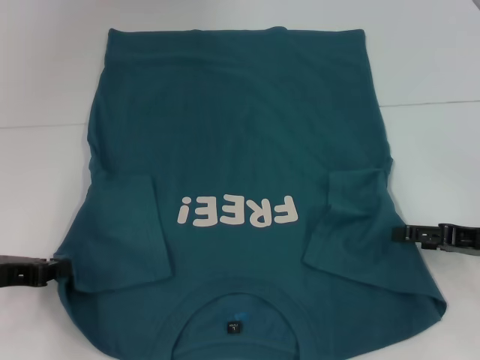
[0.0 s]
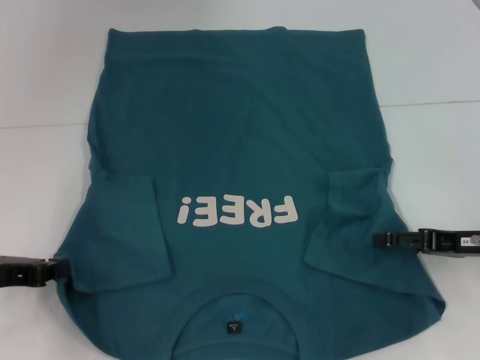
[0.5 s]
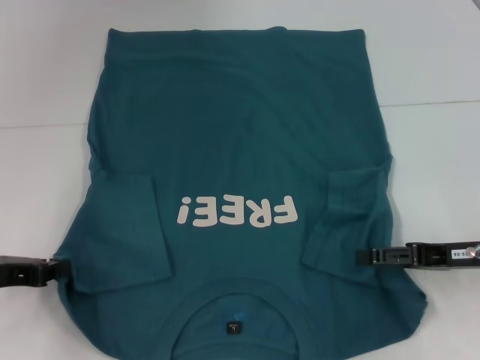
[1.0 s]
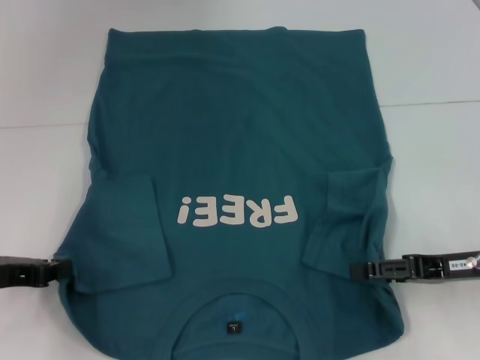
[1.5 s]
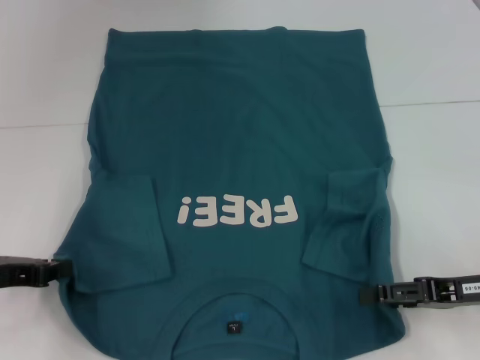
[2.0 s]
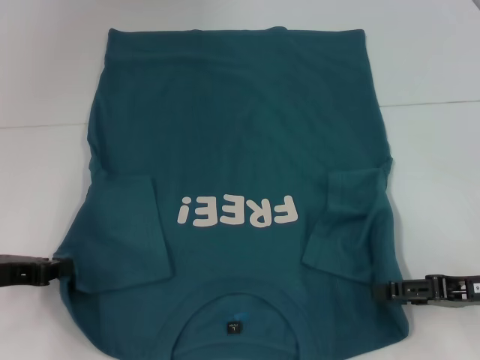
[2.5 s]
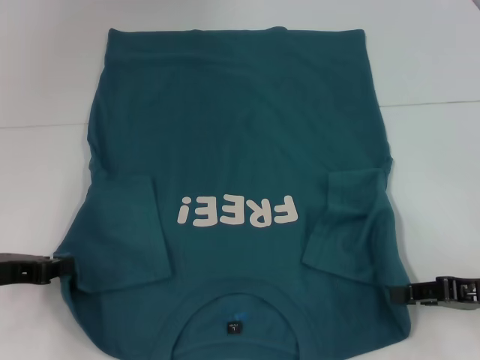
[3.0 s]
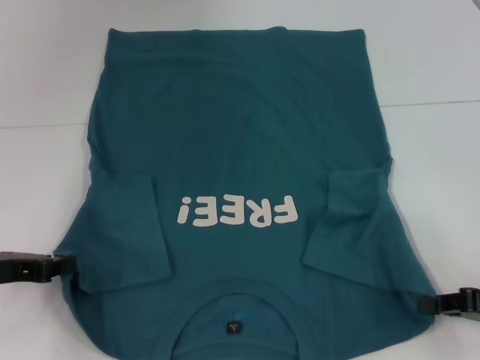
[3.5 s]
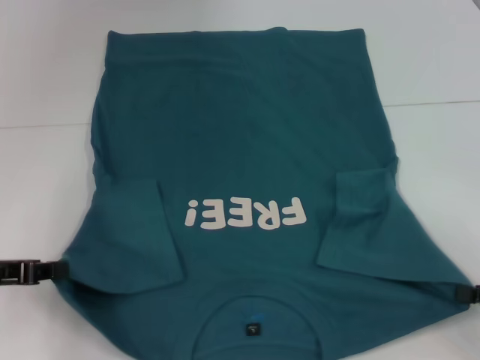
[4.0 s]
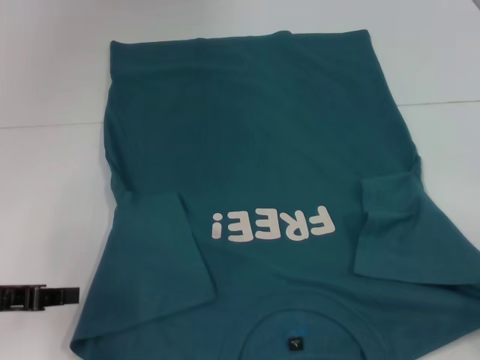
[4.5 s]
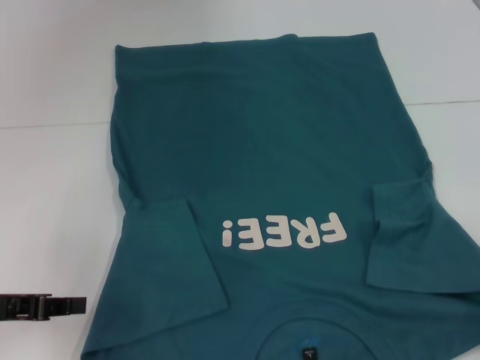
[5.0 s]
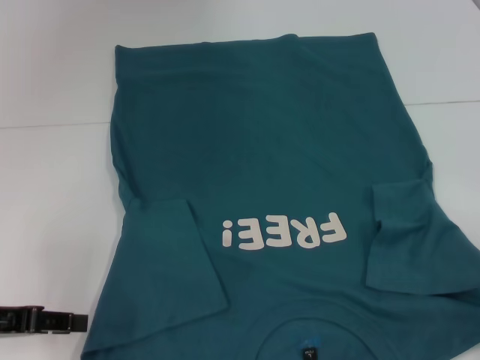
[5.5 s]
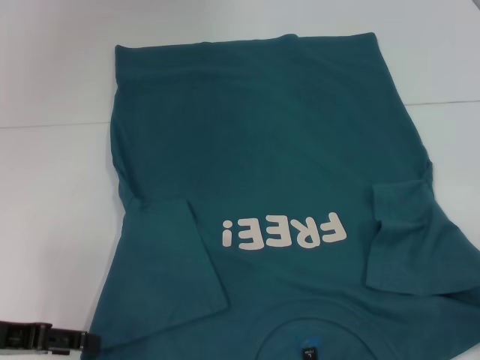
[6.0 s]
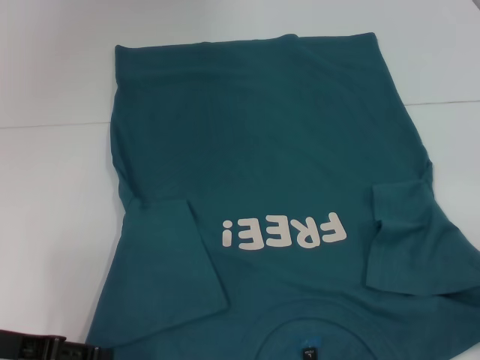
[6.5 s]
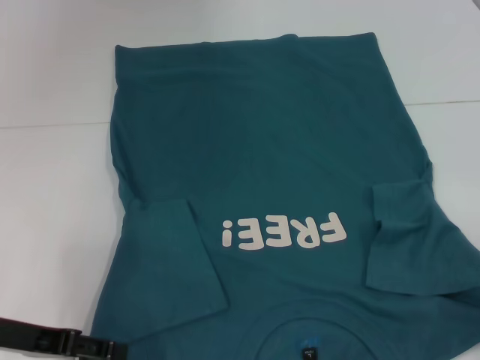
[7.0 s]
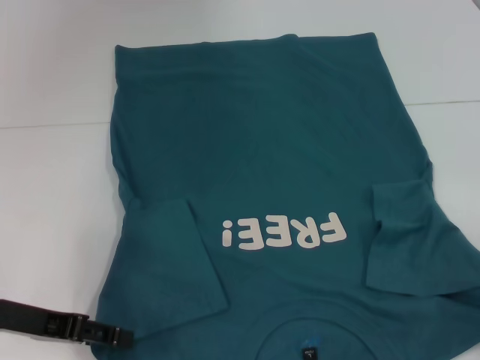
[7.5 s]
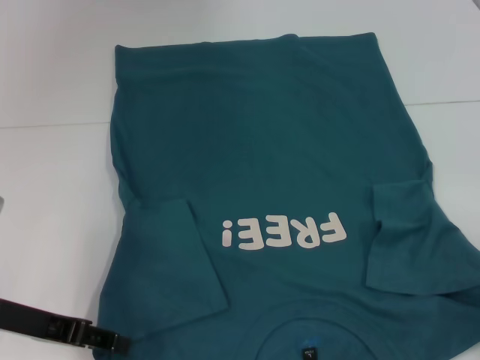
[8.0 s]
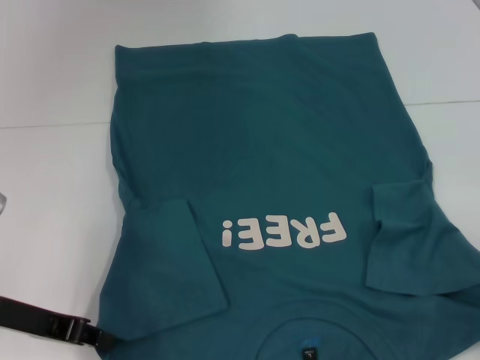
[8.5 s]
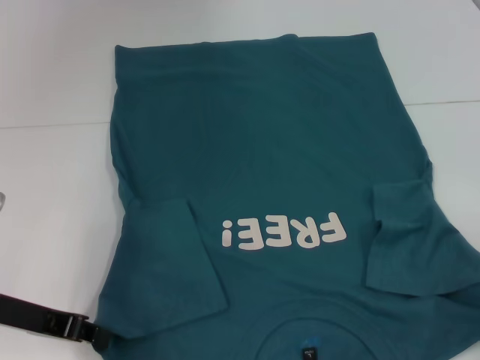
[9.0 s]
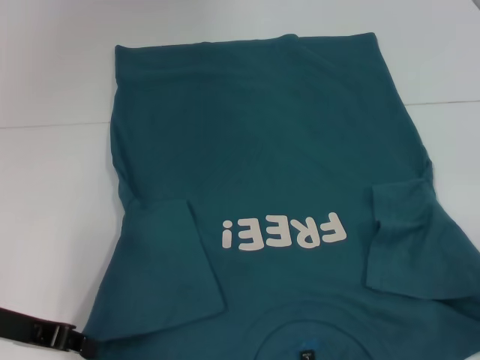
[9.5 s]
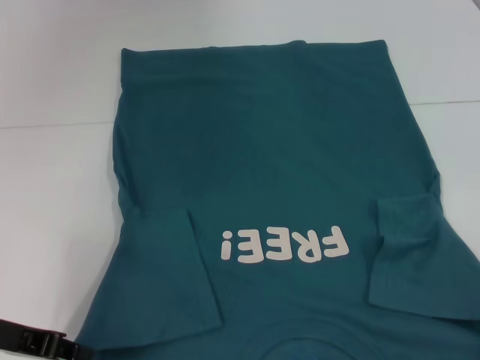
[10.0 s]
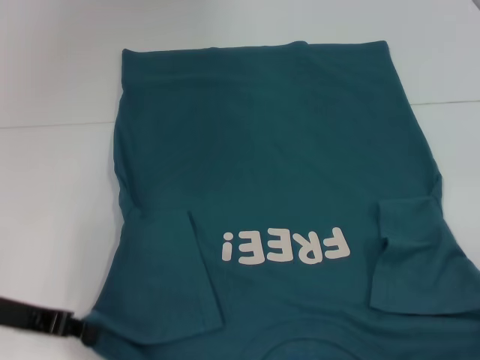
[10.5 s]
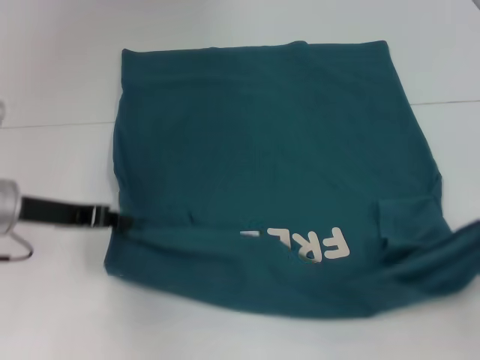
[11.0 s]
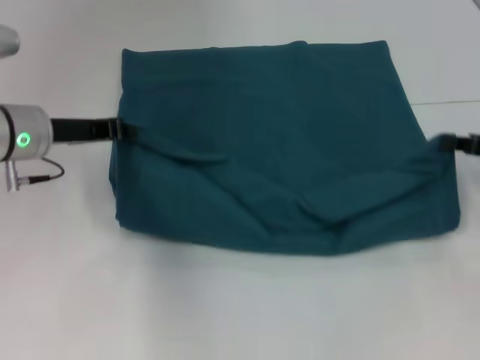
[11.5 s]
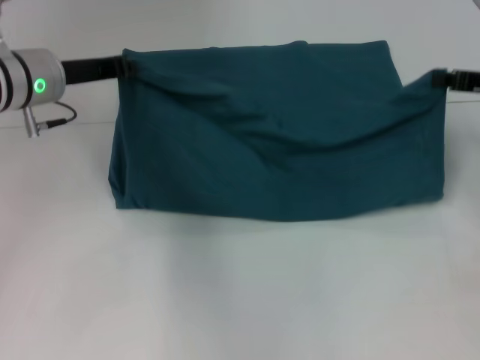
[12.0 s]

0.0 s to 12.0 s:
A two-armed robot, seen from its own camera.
Step, 0.0 to 4.0 s: Grab the bottom right corner with your right hand.
Step, 4.5 to 8.5 s: Grab the bottom left corner with your left hand.
0.0 to 2.0 s: There are only small adjustments of the grippers.
2.0 to 4.0 s: The right gripper goes about 10 cm to the right, and closes.
4.0 to 6.0 s: The left gripper opens.
6.0 to 8.0 s: There are only small adjustments of the grippers.
8.0 to 10.0 s: The left gripper closes up.
10.0 to 12.0 s: The right gripper is displaced forward by approximately 25 cm. Meanwhile the left gripper heads forward, to the right and upward, covering roughly 20 cm.

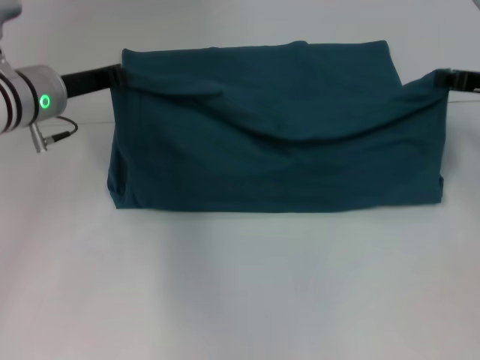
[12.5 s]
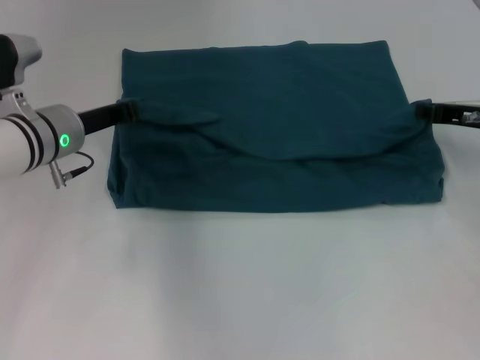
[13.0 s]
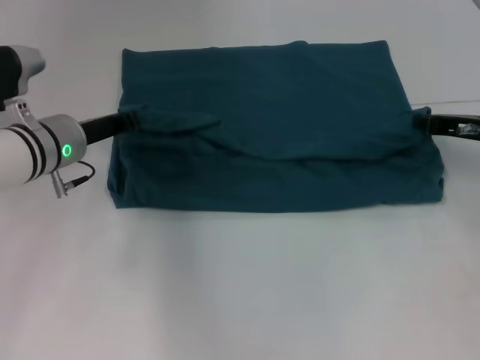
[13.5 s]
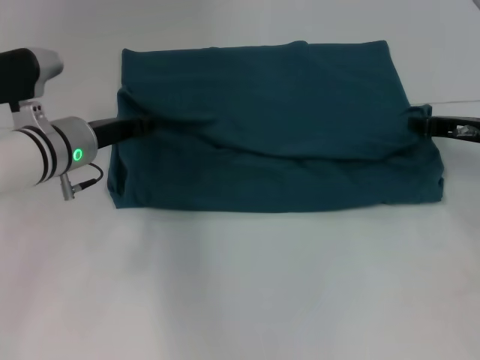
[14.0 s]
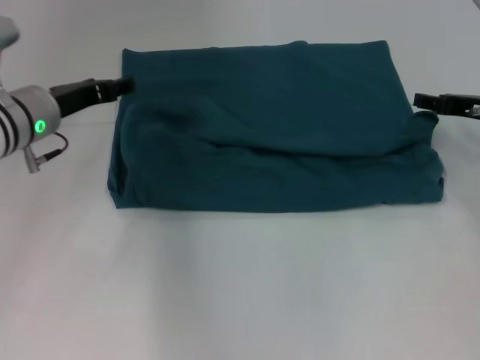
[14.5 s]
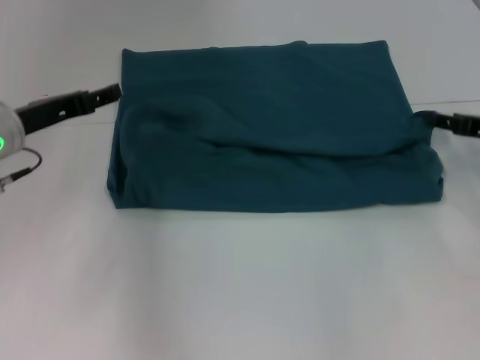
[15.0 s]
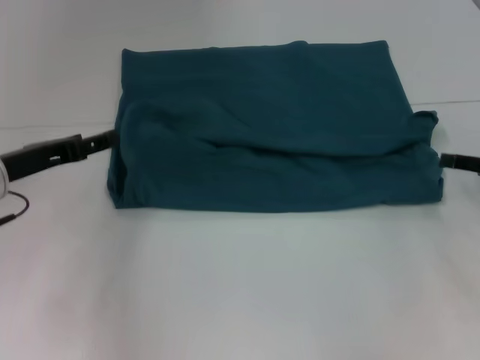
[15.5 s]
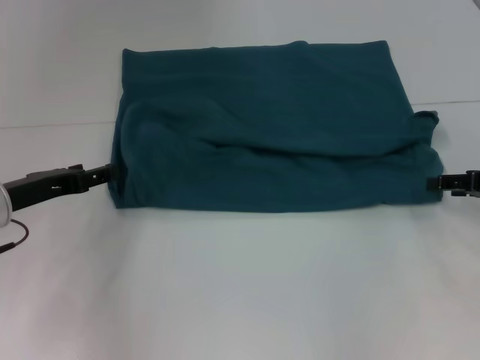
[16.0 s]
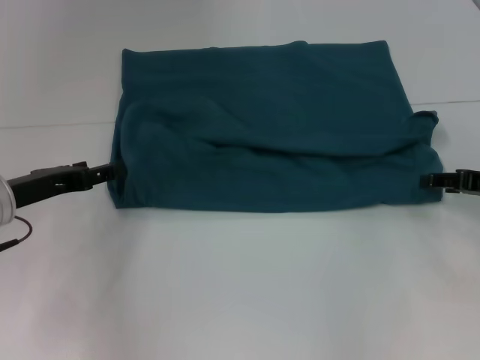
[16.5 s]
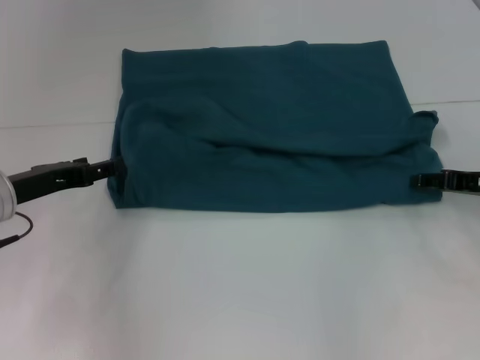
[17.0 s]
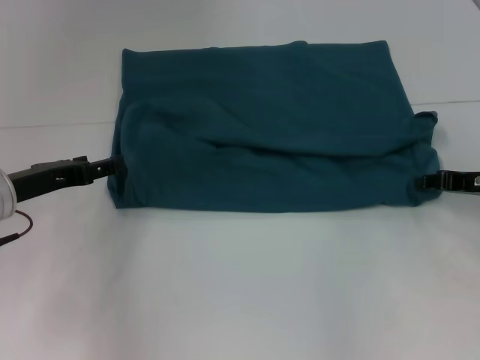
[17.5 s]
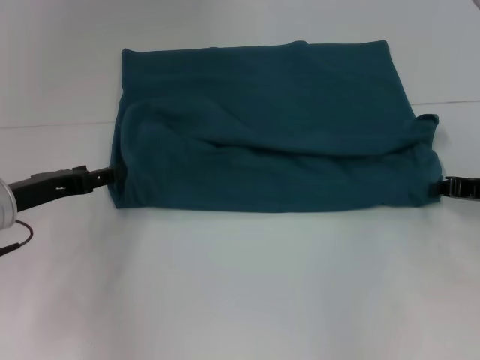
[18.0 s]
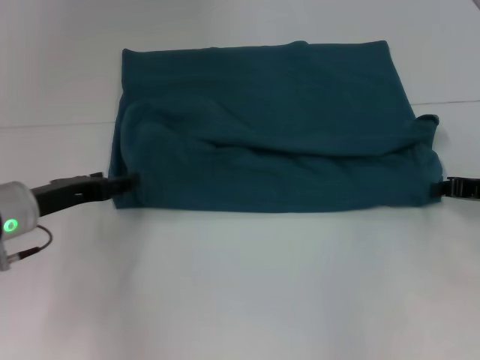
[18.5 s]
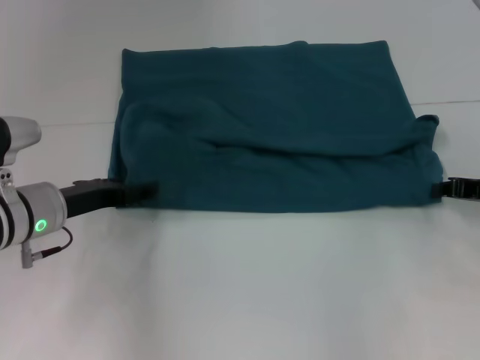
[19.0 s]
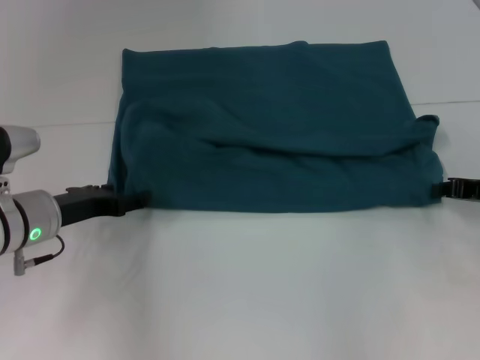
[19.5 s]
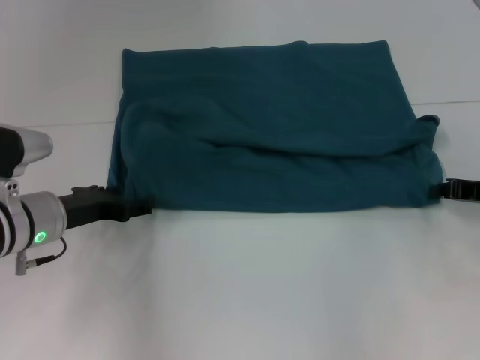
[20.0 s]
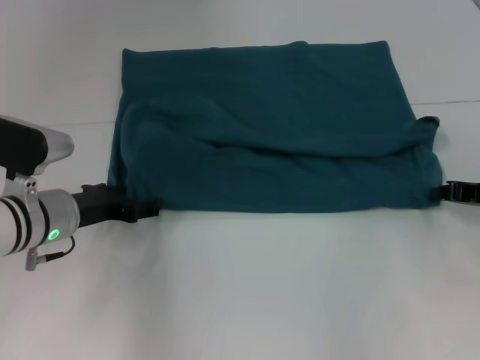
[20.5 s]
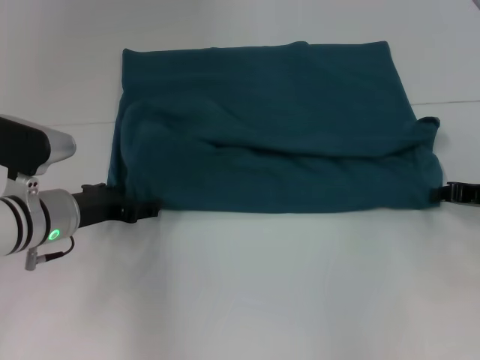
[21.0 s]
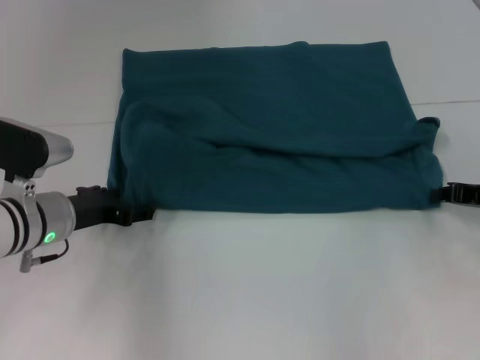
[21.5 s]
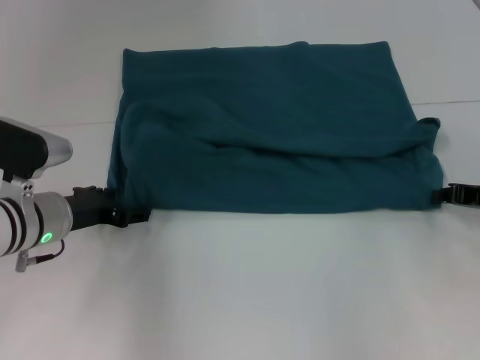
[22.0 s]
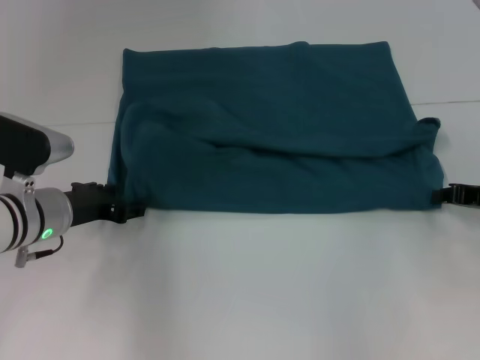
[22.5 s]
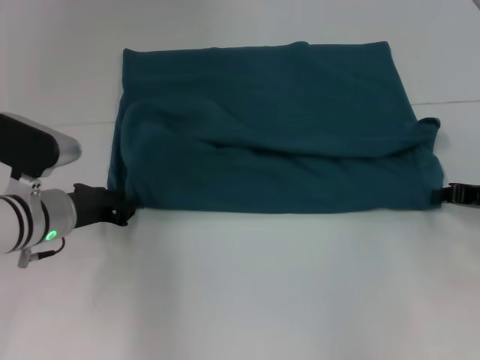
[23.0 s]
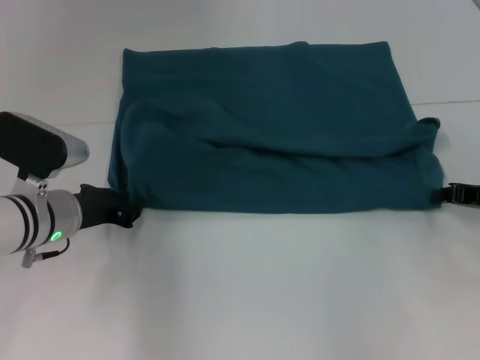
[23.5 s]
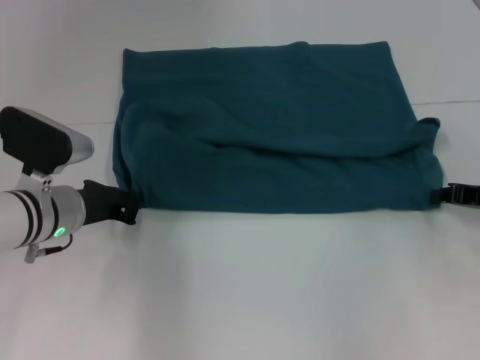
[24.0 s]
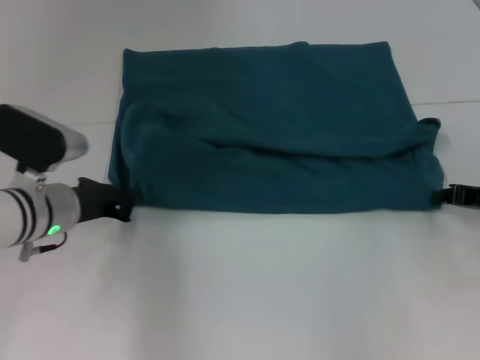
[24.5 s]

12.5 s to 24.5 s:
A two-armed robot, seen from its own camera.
Step, 12.5 to 14.5 s: Fold the clothes to the left.
Step, 12.5 to 14.5 s: Fold the clothes to the right.
12.5 to 14.5 s: The left gripper opens its fingers, while the right gripper opens up.
14.5 to 16.5 s: The left gripper travels backward and to the left by some 10 cm. The right gripper moves backward, approximately 5 cm.
16.5 to 18.5 s: The right gripper closes.
18.5 to 20.5 s: The grippers make only small movements.
20.5 to 22.5 s: There are only small adjustments of the grippers.
22.5 to 24.5 s: The left gripper closes its fingers.

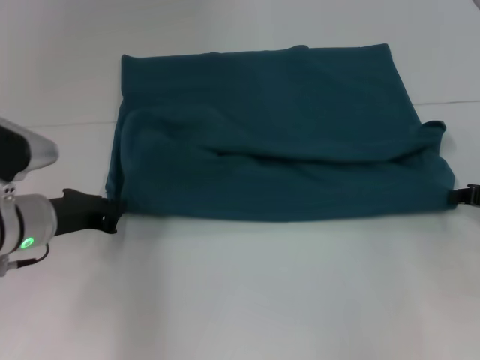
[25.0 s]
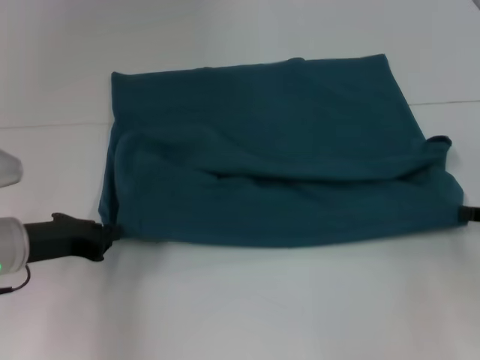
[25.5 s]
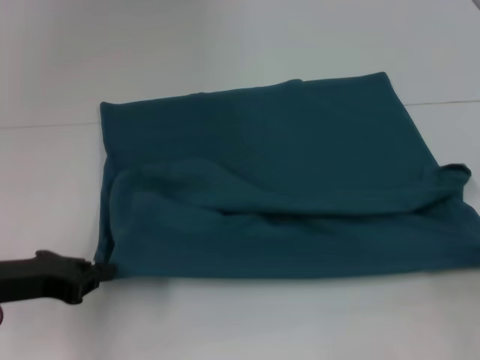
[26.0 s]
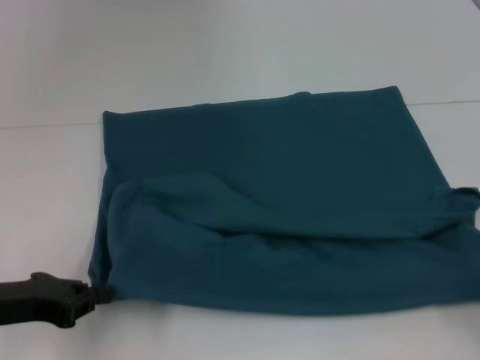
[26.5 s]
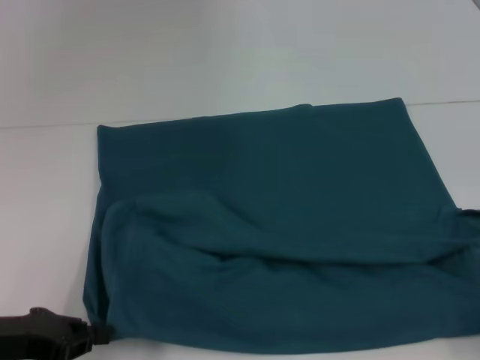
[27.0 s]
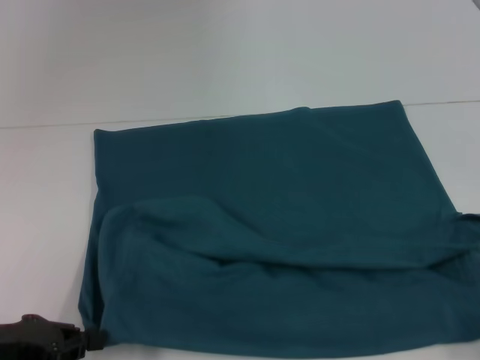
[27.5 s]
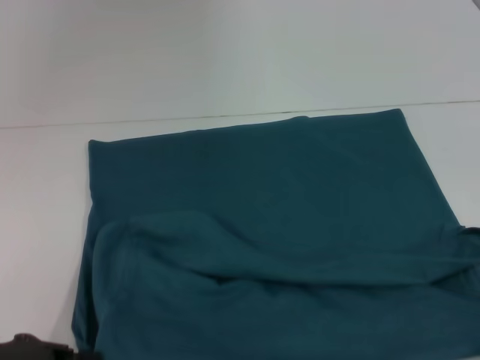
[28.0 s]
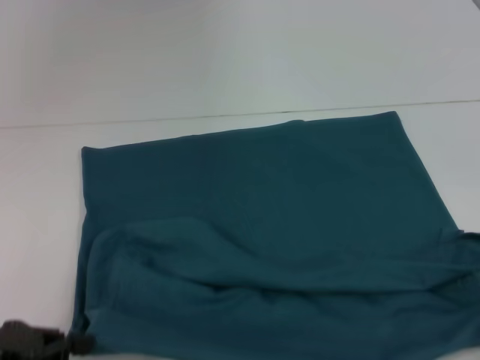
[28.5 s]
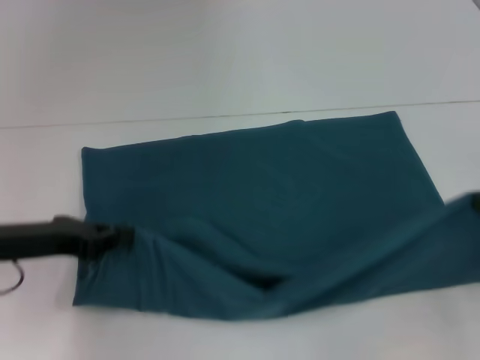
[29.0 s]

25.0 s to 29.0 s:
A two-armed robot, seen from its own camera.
Step, 25.0 to 28.0 s: Pull the clothes with your left hand.
Step, 25.0 to 28.0 s: Pull the clothes with your right hand.
25.0 to 27.0 s: The left gripper is displaced backward and to the left by roughly 15 cm; the right gripper is displaced backward by about 15 cm.
27.0 to 29.0 s: The left gripper travels forward by some 5 cm. Meanwhile the right gripper goes some 10 cm forward and upward.
